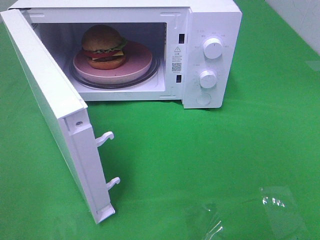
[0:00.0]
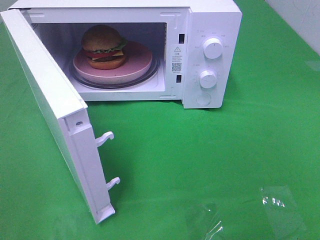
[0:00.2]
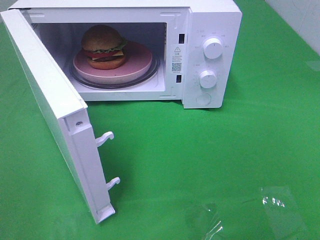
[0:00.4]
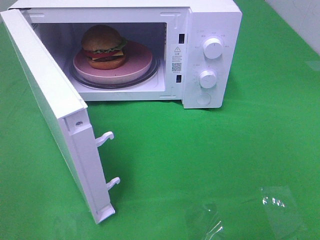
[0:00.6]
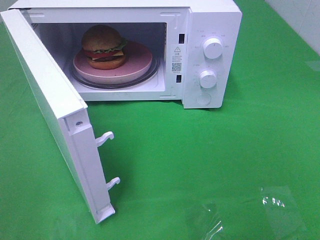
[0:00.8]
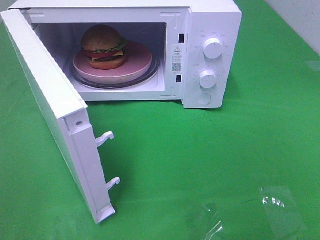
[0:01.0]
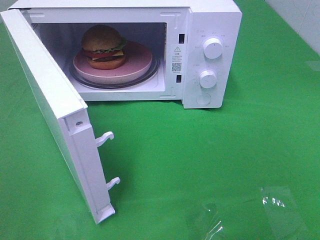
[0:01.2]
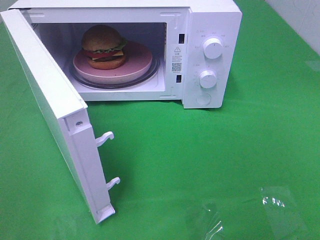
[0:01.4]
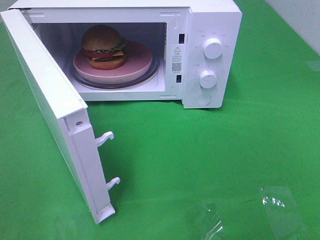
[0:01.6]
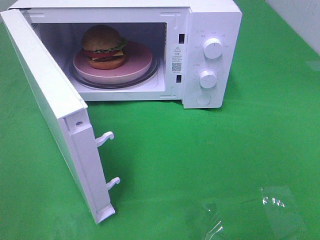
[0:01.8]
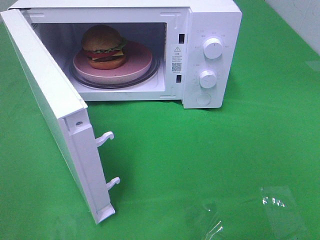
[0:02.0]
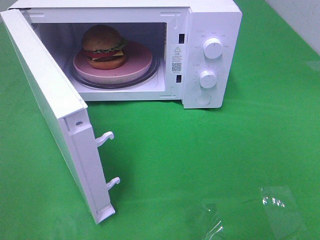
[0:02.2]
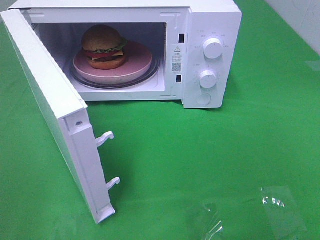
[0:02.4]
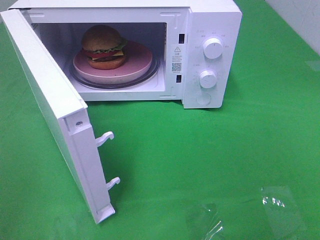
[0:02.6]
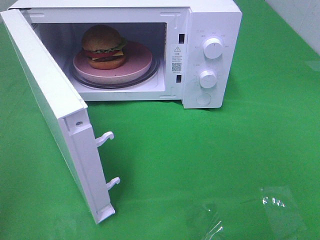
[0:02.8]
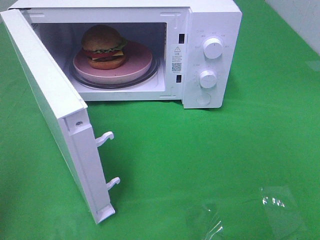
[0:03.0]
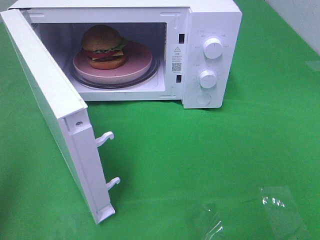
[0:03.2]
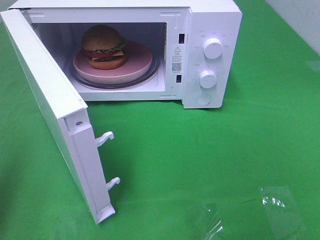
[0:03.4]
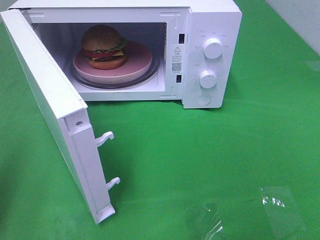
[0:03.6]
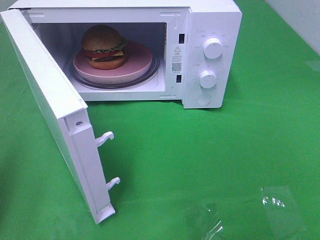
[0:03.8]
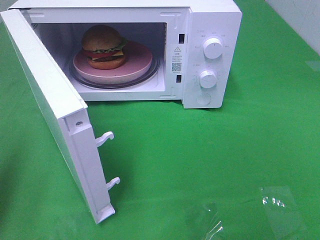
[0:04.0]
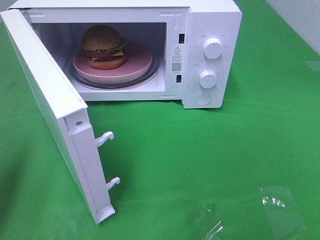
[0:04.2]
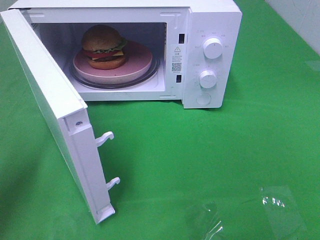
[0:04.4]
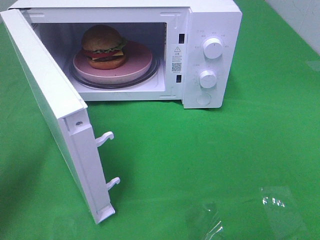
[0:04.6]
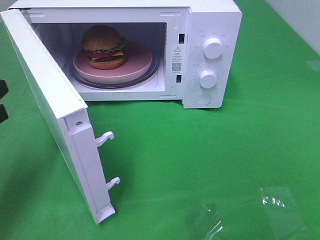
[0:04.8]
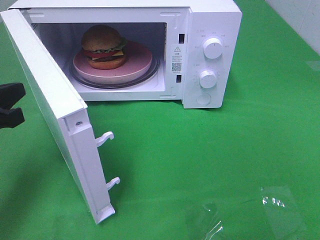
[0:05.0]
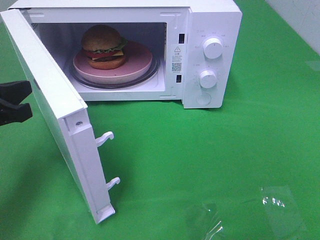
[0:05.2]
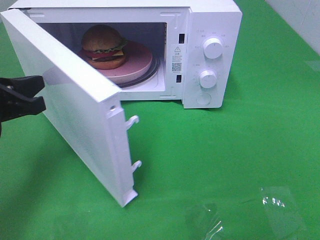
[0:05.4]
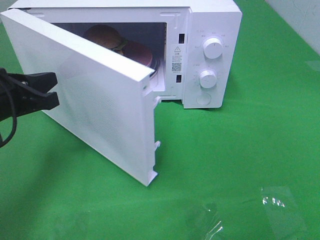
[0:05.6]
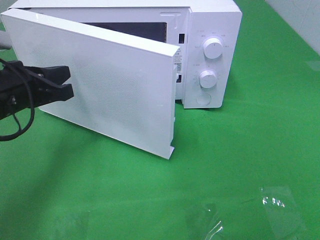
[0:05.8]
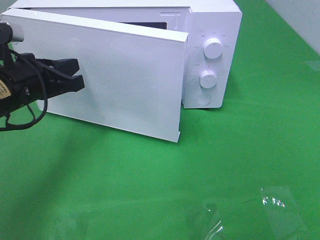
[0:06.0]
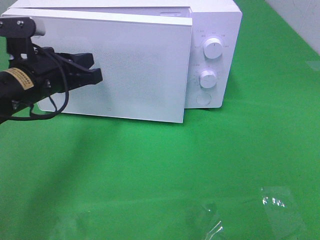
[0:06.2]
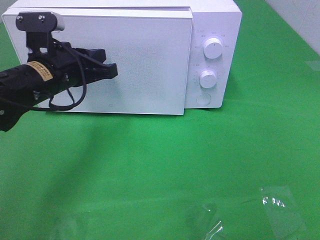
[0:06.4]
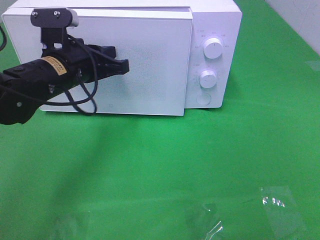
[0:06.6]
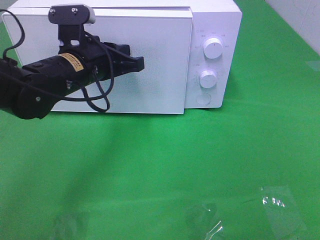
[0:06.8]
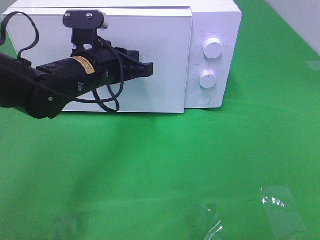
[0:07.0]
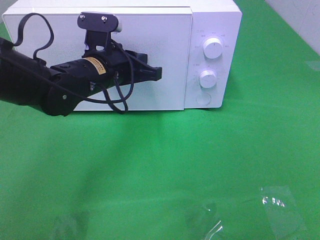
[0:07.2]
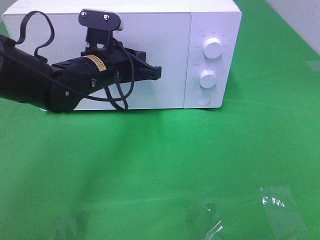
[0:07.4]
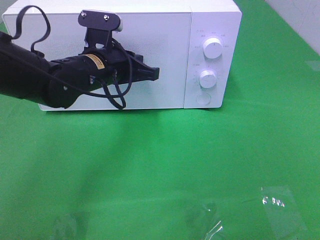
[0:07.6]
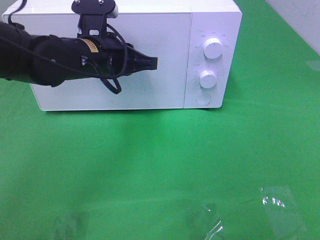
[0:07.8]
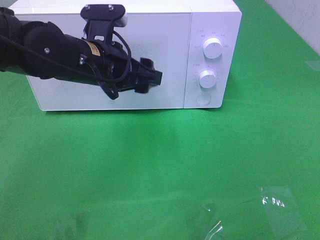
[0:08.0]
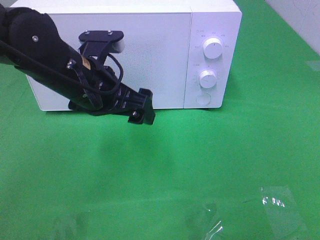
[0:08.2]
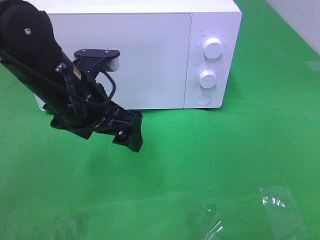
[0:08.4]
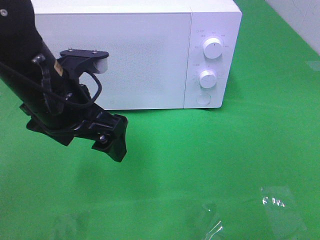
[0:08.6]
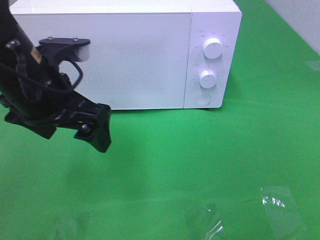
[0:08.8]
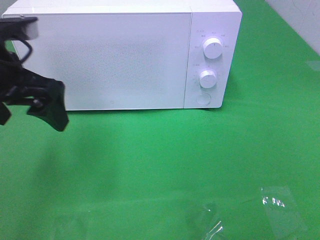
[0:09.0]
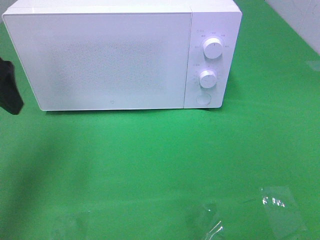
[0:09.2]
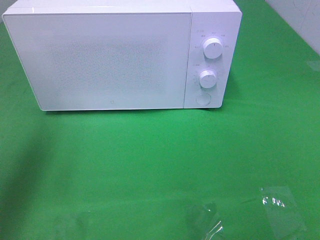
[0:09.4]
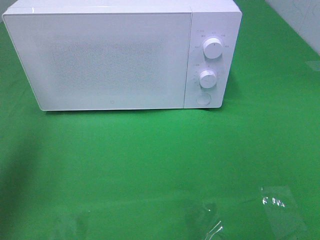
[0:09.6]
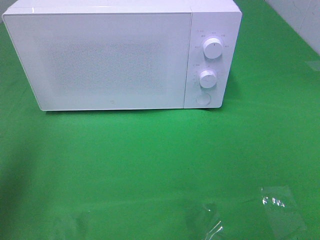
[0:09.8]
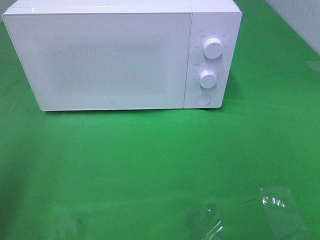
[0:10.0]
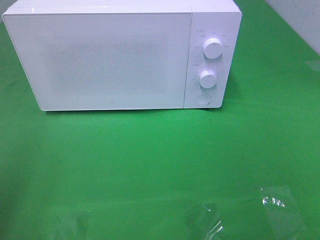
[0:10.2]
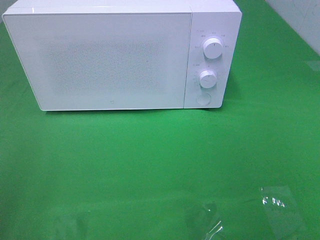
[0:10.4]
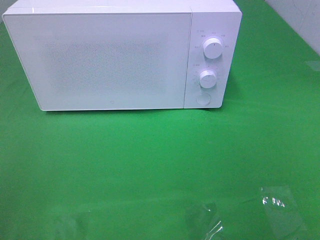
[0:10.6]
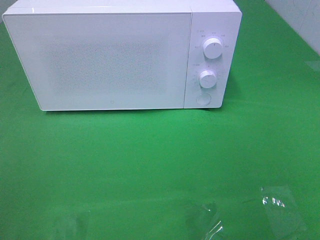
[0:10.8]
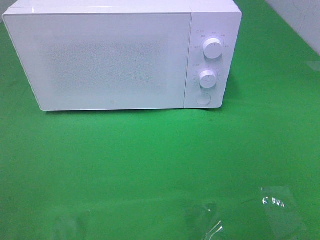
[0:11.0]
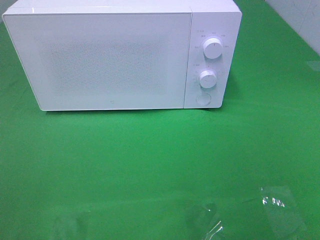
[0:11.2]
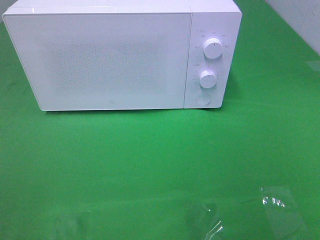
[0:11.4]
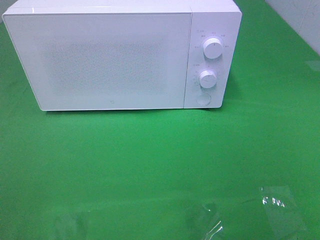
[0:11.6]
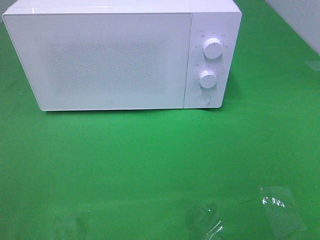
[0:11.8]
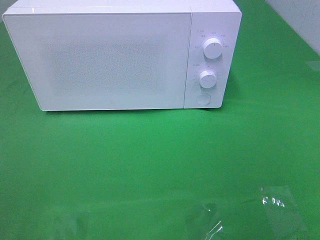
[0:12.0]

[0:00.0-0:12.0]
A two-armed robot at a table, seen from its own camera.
Task of the whole recording: Heat the burger.
Step, 0:00.0 to 0:08.0: Left hand: close the microwave door.
0:00.0 to 0:01.6: The two grippers keep their place.
0:03.0 to 0:04.4: The left gripper moves downward and forward, roughly 15 cm.
0:04.4 to 0:06.0: The left gripper goes some 15 cm forward and to the right.
0:06.0 to 0:07.6: The left gripper goes about 10 cm to the right and forward.
0:07.6 to 0:09.0: The left gripper is displaced to the left, upward and backward by roughly 15 cm, and opens its fingers.
0:09.0 to 0:10.4: The left gripper shifts approximately 25 cm backward and to the left.

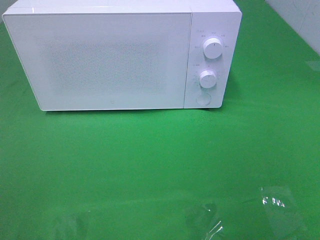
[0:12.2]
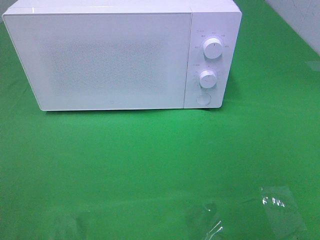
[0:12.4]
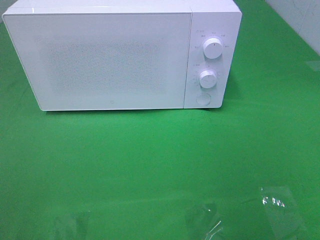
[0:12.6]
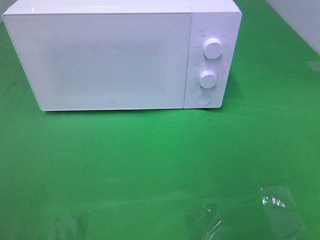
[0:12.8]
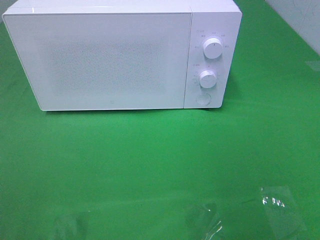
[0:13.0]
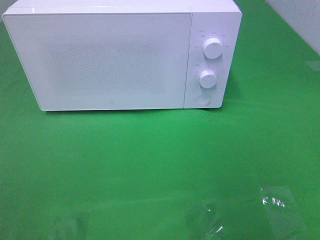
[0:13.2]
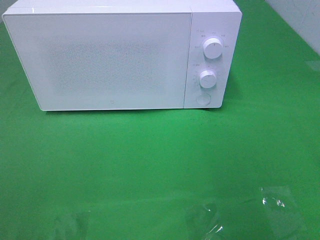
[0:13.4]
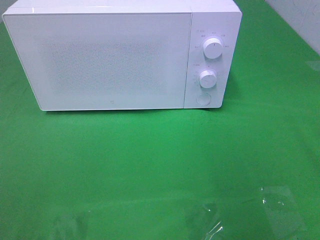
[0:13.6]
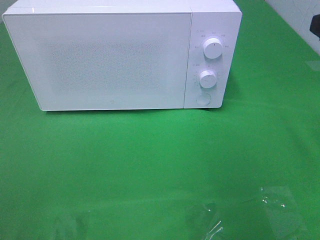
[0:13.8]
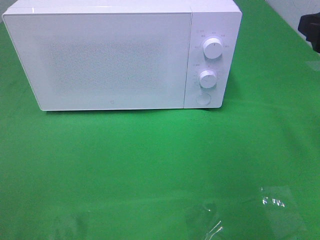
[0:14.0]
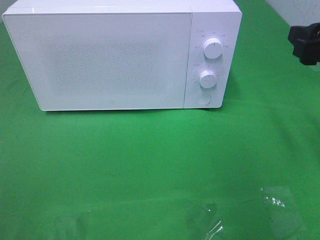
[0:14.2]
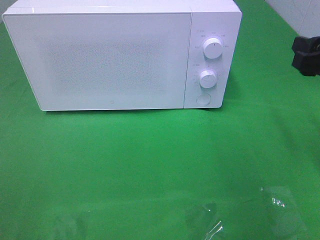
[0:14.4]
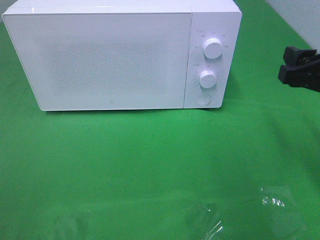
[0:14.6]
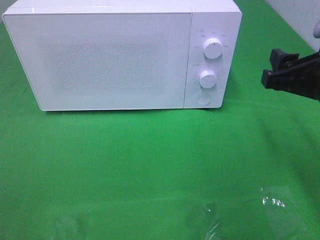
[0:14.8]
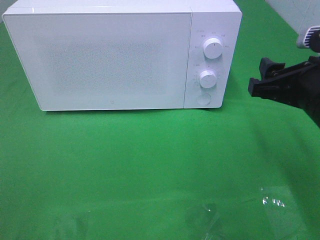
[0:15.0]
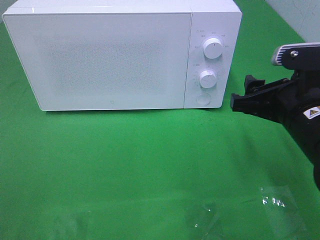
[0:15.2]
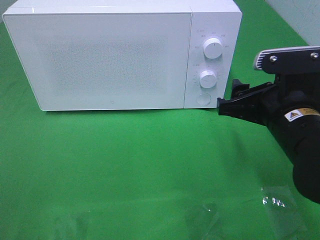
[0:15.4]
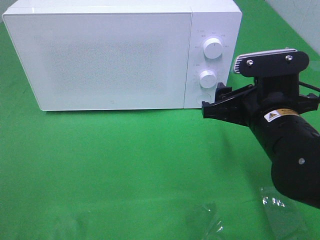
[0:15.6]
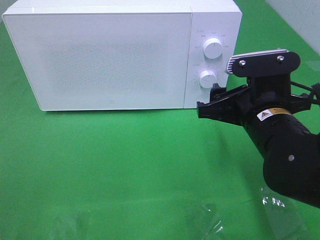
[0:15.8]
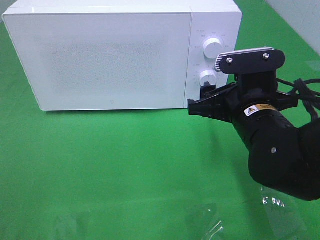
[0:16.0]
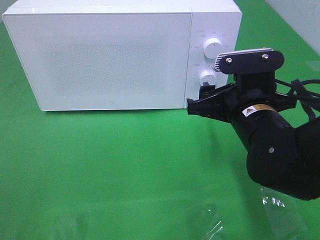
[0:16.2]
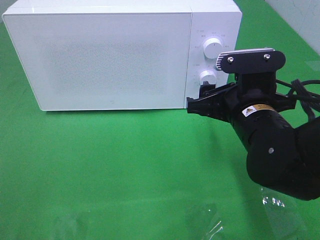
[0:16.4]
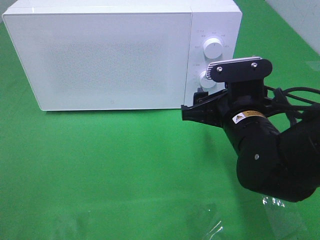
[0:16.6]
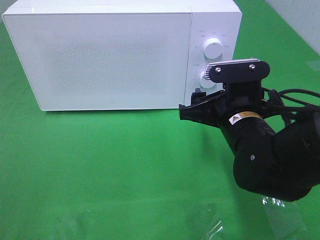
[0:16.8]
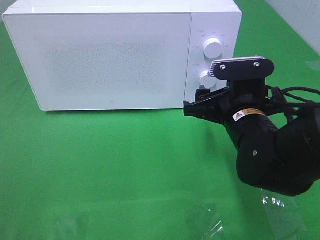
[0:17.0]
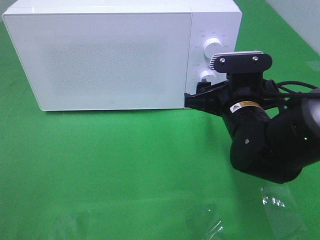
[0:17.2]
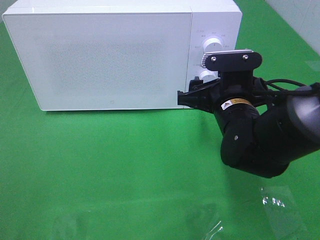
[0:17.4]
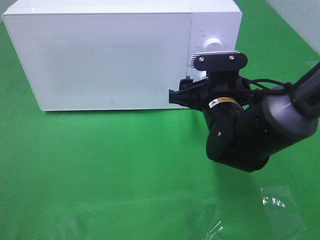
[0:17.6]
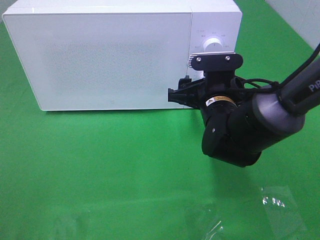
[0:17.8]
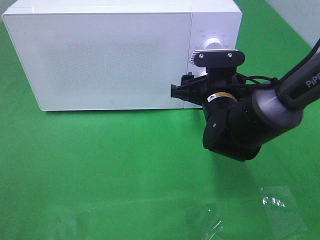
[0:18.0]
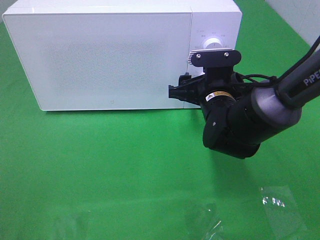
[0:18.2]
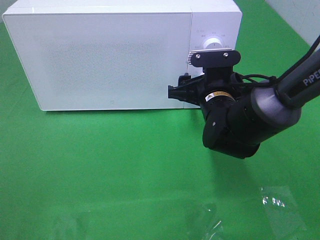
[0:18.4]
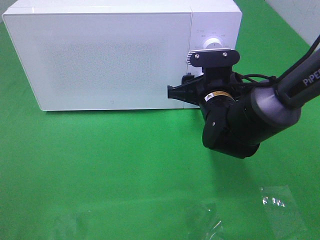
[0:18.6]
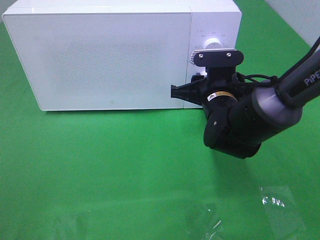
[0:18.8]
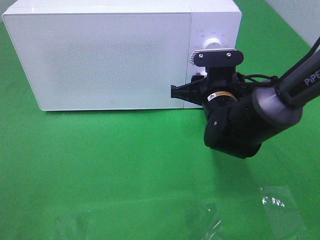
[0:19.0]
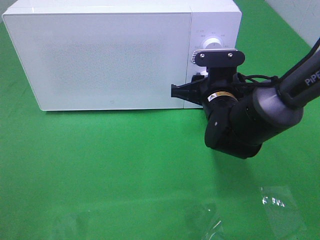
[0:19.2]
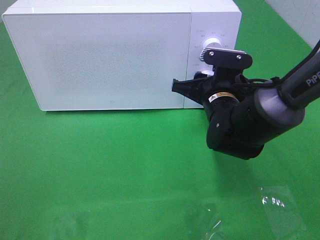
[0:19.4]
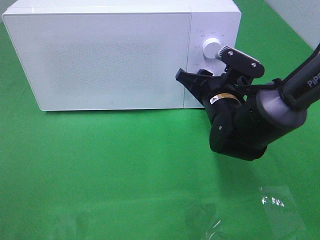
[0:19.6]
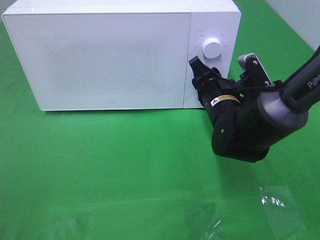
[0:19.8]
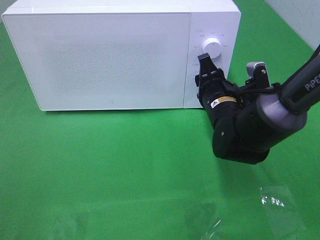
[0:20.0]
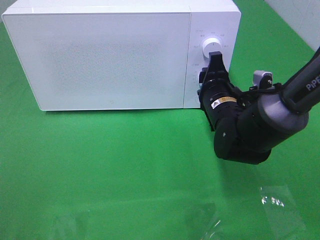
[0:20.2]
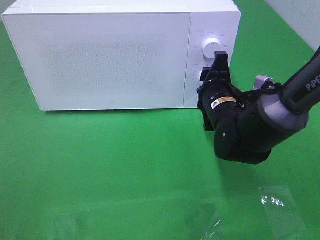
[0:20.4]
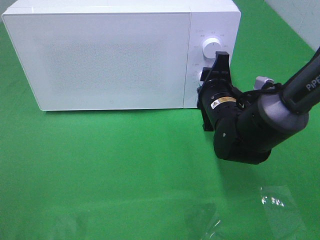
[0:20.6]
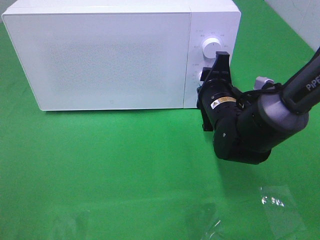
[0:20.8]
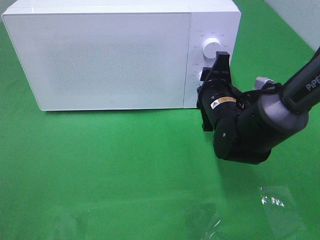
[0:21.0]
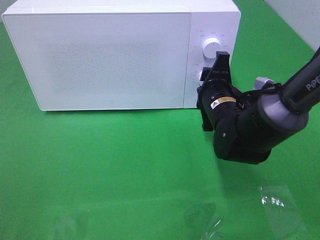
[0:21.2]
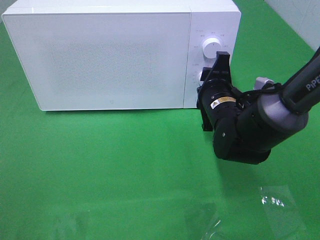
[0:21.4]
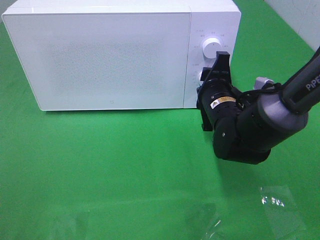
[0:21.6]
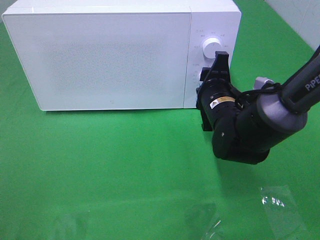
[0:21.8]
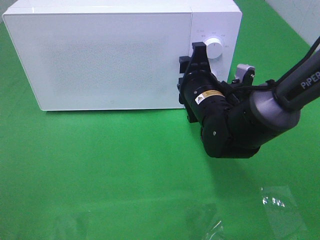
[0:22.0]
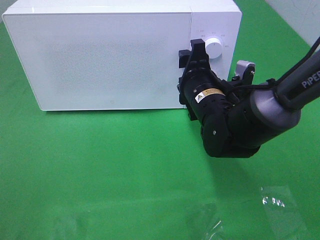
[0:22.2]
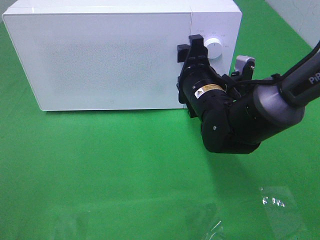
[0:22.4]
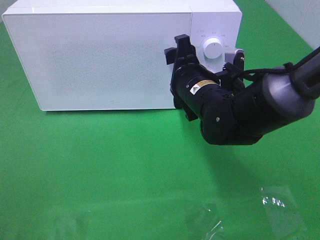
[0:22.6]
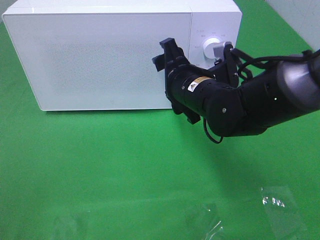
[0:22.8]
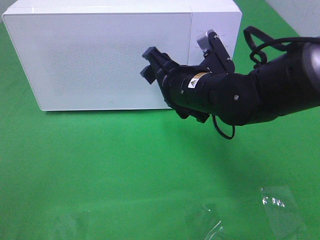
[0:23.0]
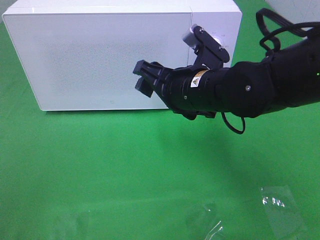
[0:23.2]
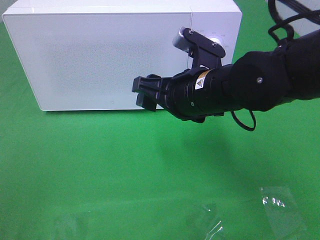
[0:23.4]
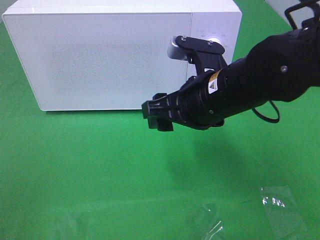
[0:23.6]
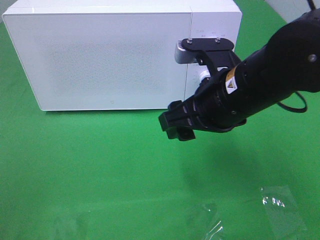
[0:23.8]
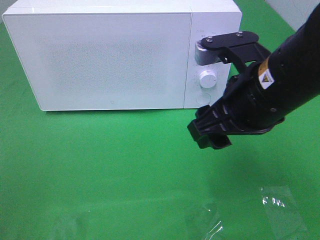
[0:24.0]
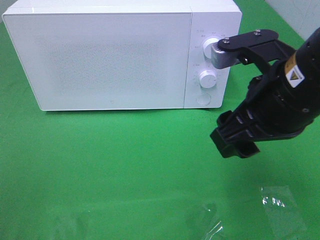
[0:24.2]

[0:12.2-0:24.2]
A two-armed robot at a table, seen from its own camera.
Task of the whole recording: Heat the burger.
Step, 0:12.2 to 0:22.6: Right hand: twist timer button.
0:13.8 to 0:15.2: The right gripper is displaced downward and to the left by about 15 cm.
0:15.2 to 0:16.6: The right gripper moves to the left, approximately 5 cm.
0:16.6 to 0:18.2: The right gripper goes approximately 10 cm forward.
0:18.2 to 0:19.8: The right gripper closes.
0:21.2 to 0:22.6: The right gripper changes place by approximately 5 cm.
0:22.6 to 0:24.2: The right gripper shifts roughly 15 cm backward, upward and to the right.
